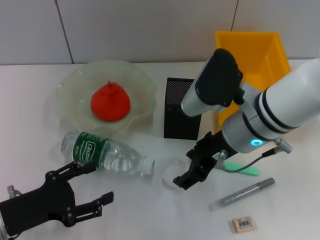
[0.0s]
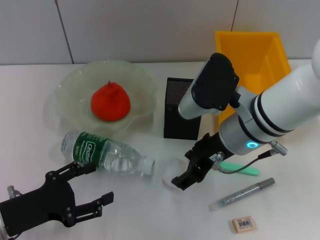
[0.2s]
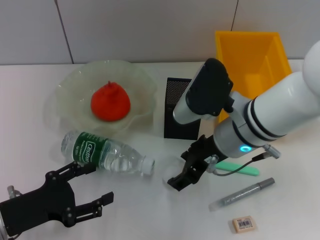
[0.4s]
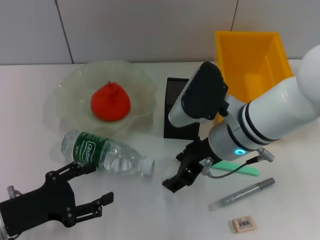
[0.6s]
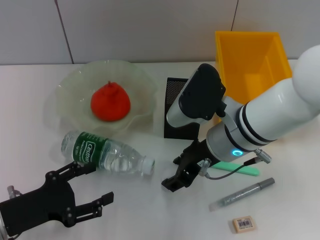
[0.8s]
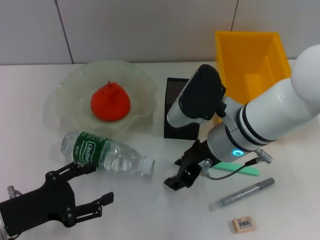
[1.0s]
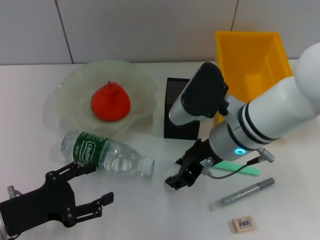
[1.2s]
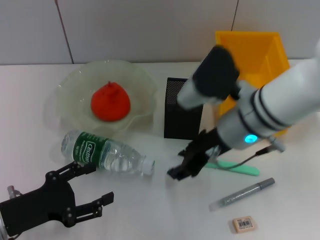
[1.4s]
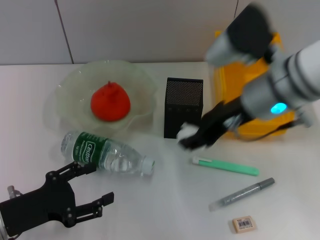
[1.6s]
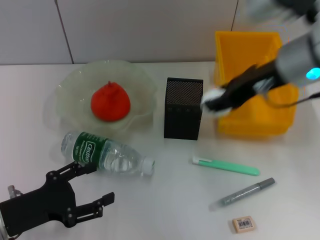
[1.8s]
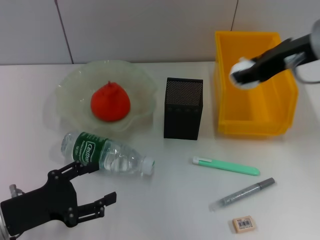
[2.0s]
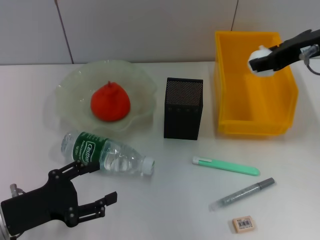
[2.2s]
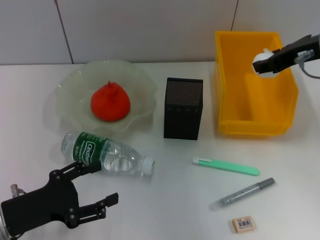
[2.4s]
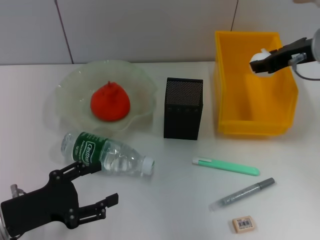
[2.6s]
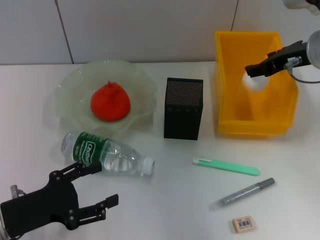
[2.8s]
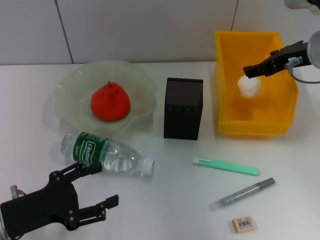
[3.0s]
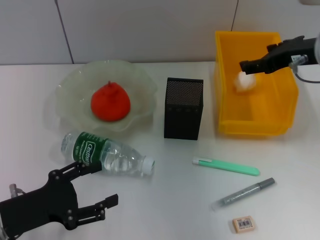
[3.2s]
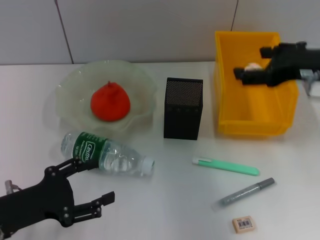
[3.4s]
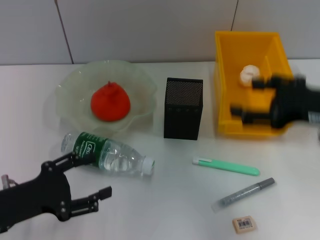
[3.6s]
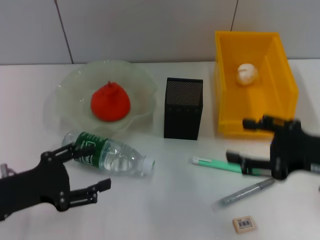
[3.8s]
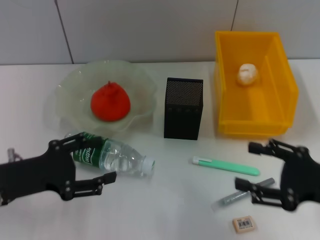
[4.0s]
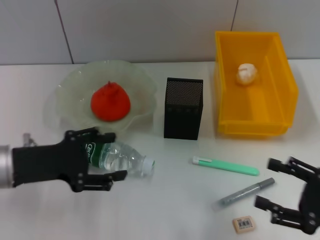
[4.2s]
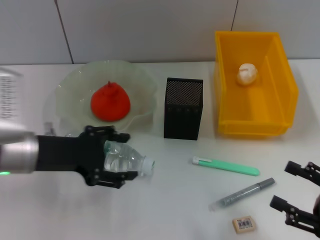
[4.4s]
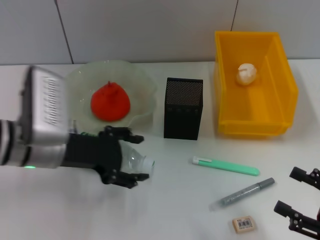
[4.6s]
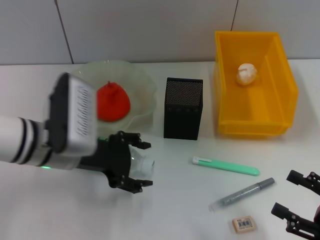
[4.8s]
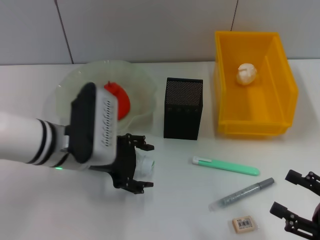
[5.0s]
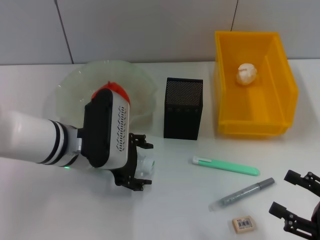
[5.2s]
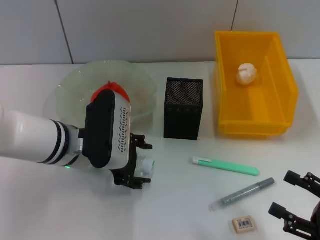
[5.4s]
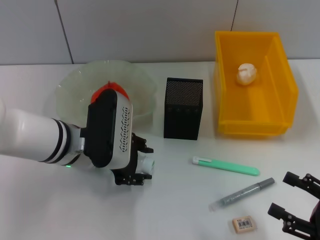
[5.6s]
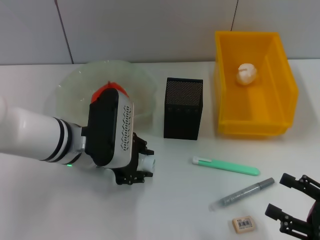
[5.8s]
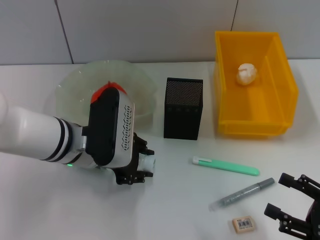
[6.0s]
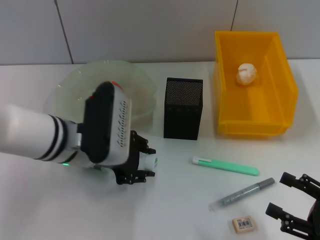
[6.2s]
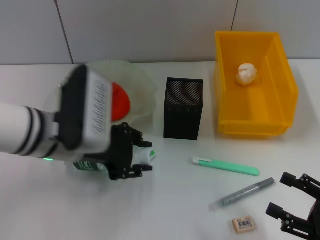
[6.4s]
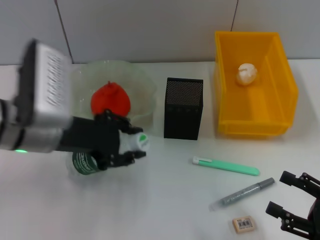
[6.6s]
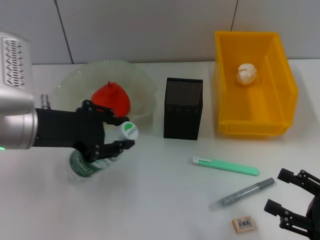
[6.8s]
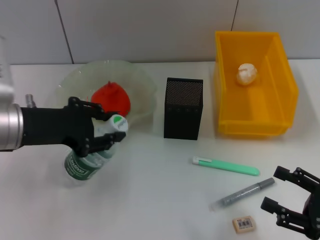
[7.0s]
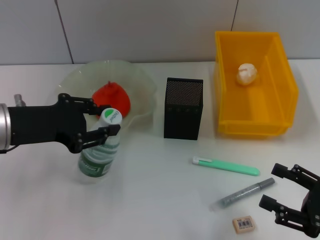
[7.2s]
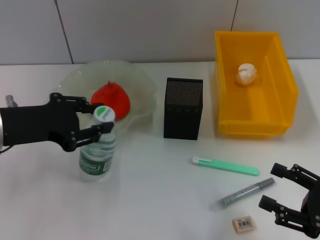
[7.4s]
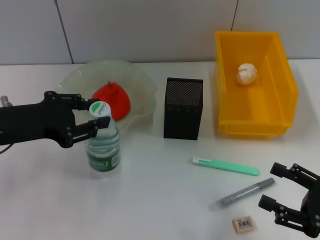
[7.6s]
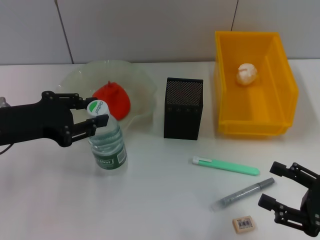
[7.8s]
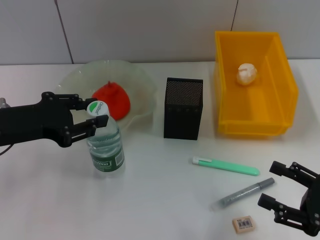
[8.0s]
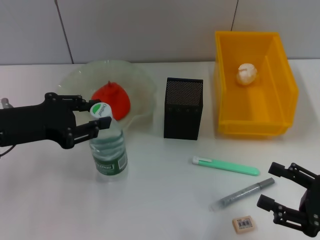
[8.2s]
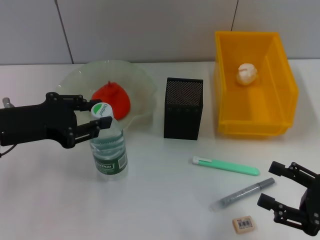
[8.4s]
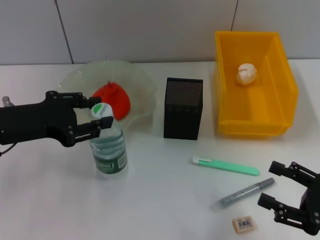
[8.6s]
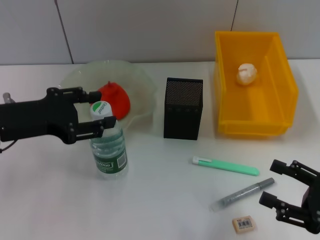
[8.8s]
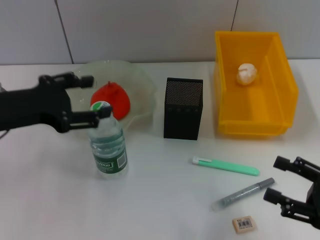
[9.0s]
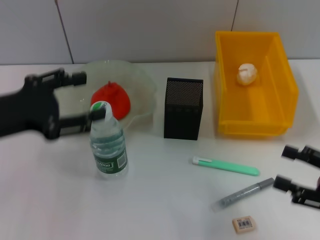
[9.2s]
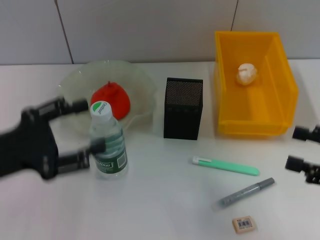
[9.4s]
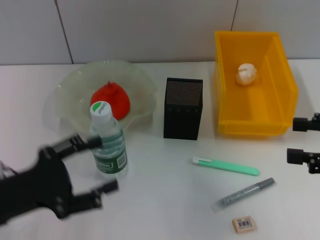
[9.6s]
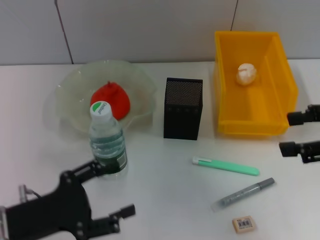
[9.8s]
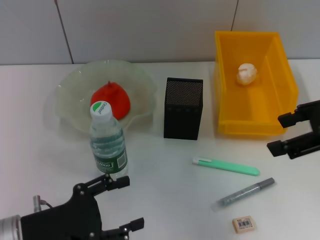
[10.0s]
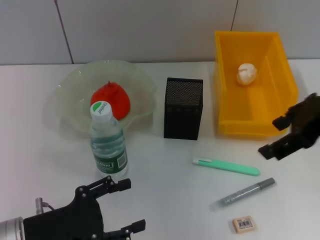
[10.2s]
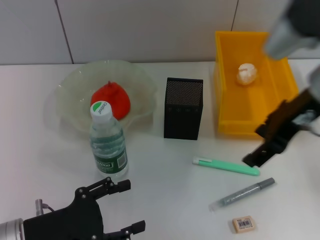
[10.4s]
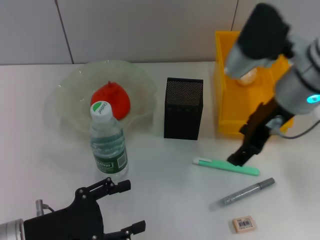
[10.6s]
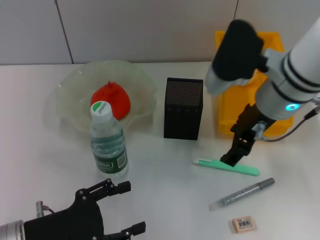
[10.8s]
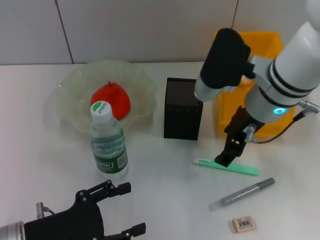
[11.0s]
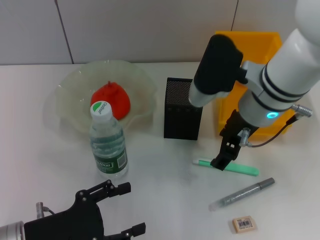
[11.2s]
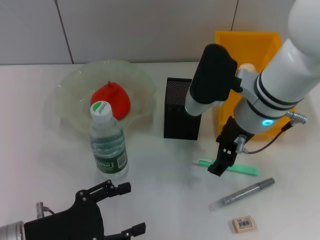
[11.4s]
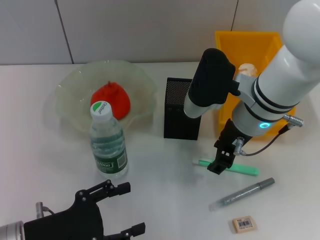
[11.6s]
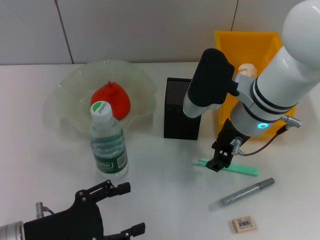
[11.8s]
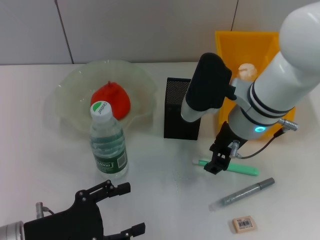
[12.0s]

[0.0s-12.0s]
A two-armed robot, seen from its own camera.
Step, 1.2s to 3.0s: Place the paper ball into the trash can with the right hand.
Step, 3.4s to 6.0s: Grab the water bottle with the left hand.
Step, 6.2s to 8.6s: Place the water bottle on the table with the left hand.
0.0s to 1.6s: The right gripper moves roughly 5 cm.
1.6s to 3.0s: The right gripper shifts about 10 cm to the right and forward.
3.0s to 4.4s: The right gripper is displaced backward and downward by roughly 25 cm. The left gripper travels forward and upward by about 10 cm.
4.4s to 6.0s: The left gripper travels to the right by approximately 10 cm, and closes up.
6.0s to 7.6s: The left gripper moves to the left and upward, some 15 cm.
7.6s to 9.0s: The left gripper opens.
9.0s to 10.4s: The right gripper goes roughly 25 cm upward, forward and to the left; the left gripper travels downward and backward by approximately 15 cm.
10.4s to 12.0s: The right gripper goes approximately 10 cm downward and to the left, and closes its fingers.

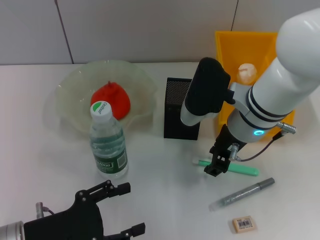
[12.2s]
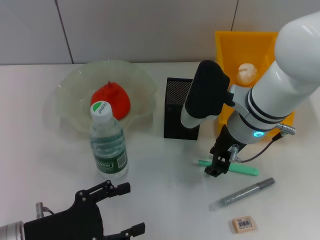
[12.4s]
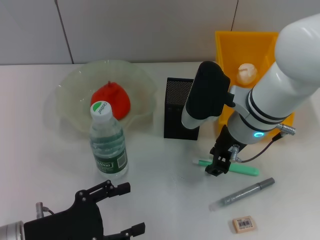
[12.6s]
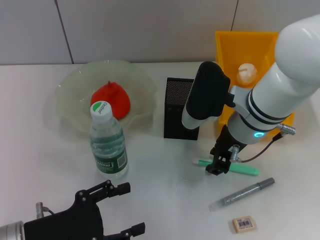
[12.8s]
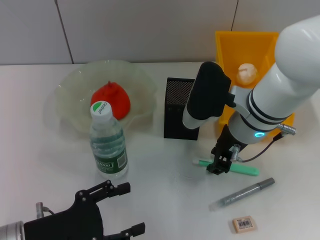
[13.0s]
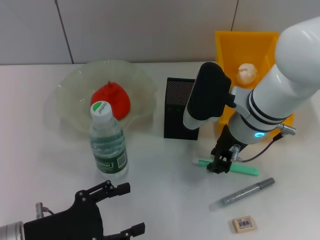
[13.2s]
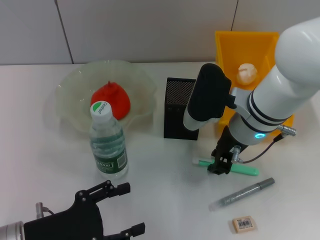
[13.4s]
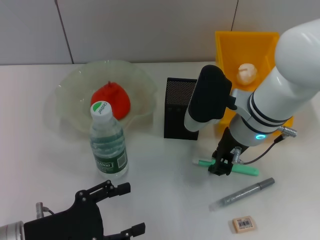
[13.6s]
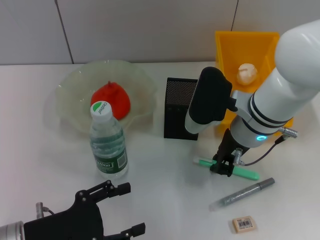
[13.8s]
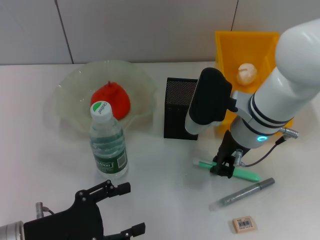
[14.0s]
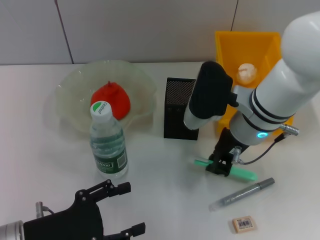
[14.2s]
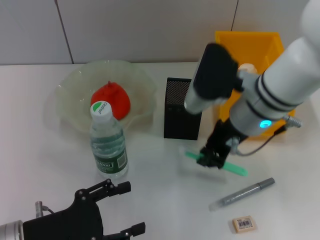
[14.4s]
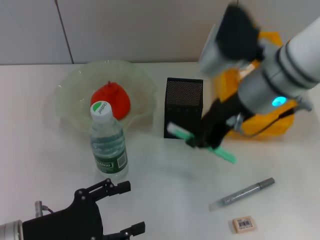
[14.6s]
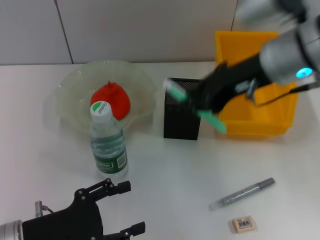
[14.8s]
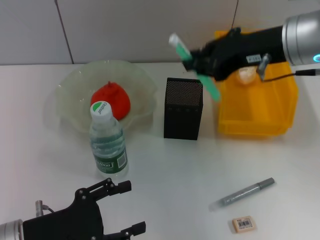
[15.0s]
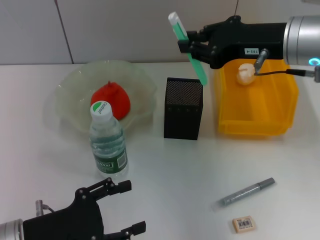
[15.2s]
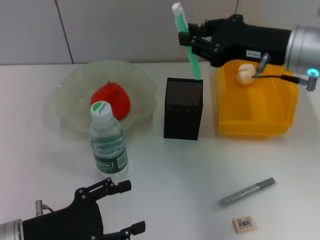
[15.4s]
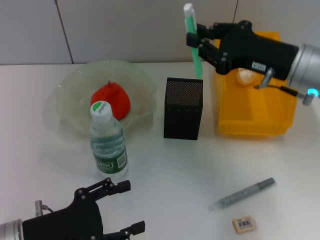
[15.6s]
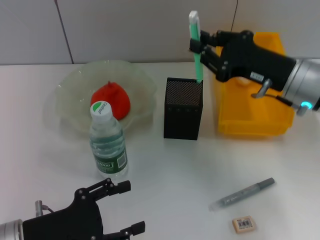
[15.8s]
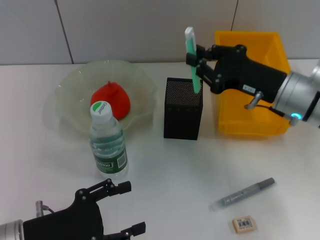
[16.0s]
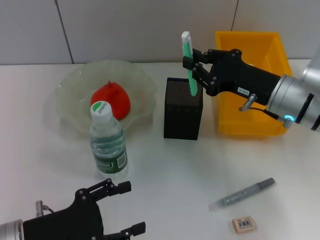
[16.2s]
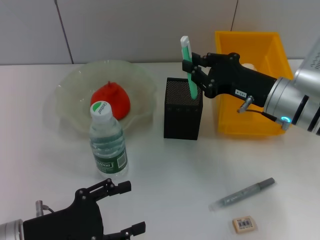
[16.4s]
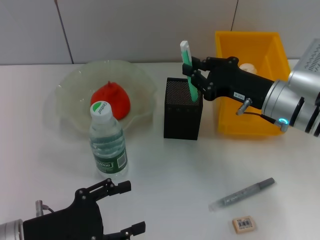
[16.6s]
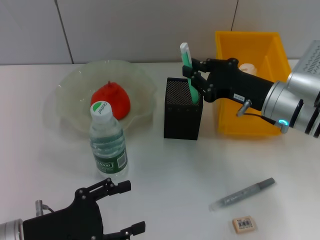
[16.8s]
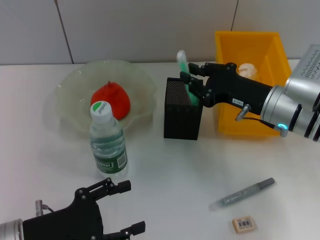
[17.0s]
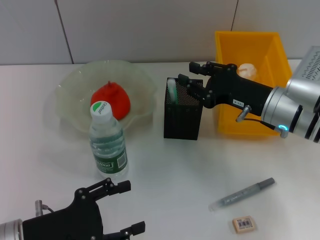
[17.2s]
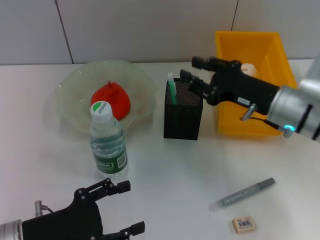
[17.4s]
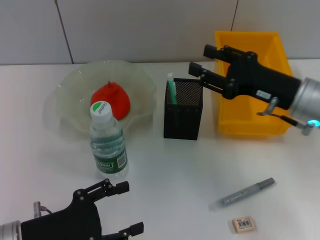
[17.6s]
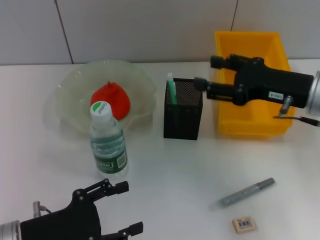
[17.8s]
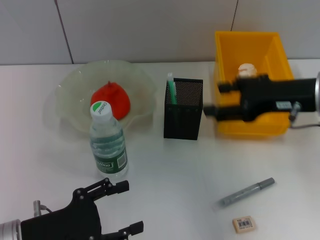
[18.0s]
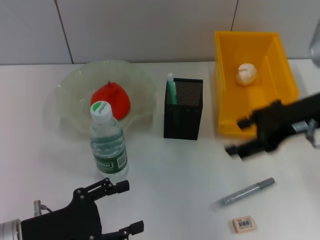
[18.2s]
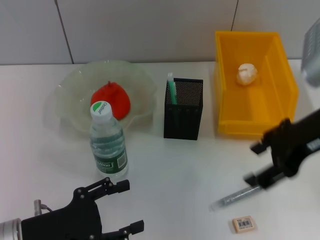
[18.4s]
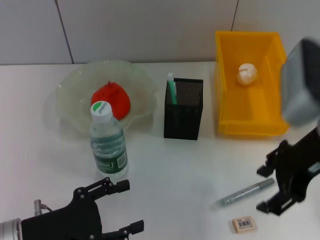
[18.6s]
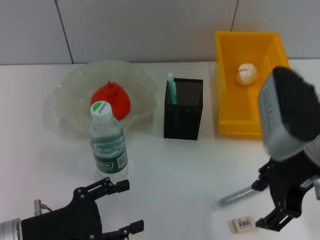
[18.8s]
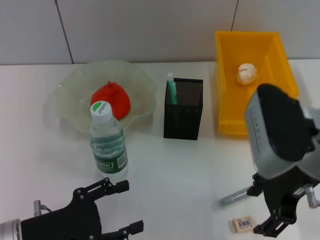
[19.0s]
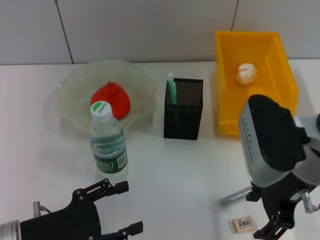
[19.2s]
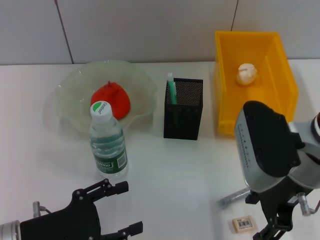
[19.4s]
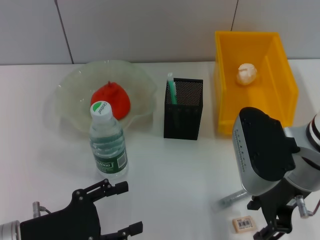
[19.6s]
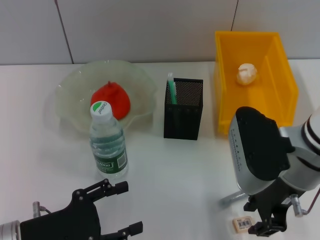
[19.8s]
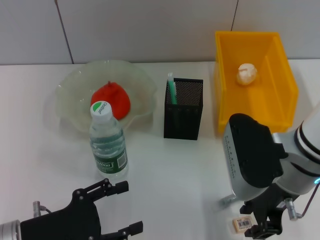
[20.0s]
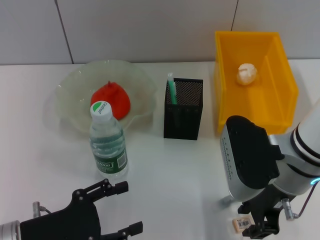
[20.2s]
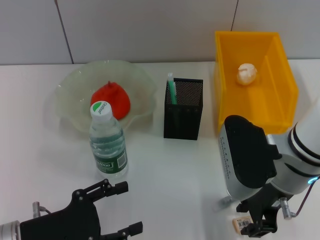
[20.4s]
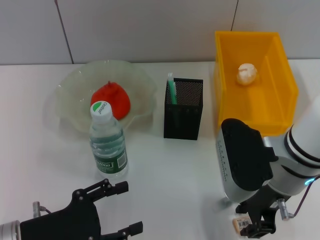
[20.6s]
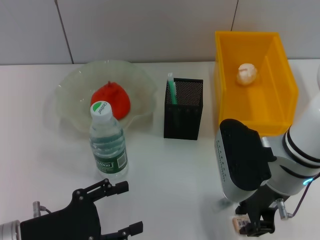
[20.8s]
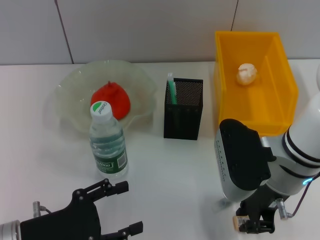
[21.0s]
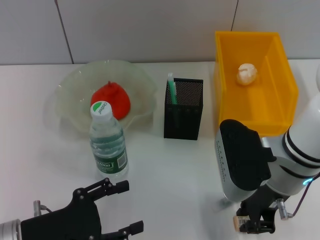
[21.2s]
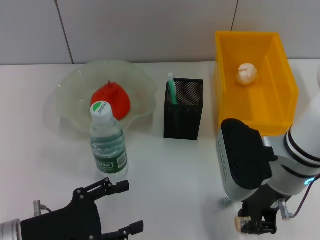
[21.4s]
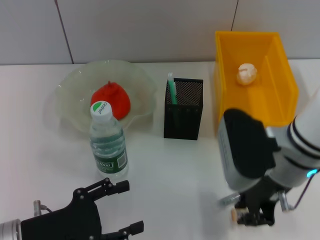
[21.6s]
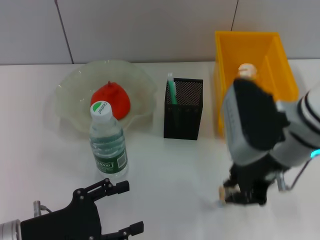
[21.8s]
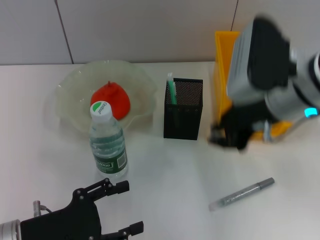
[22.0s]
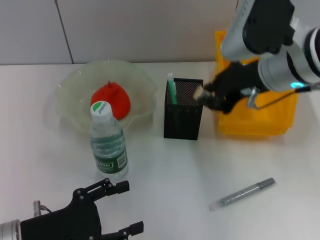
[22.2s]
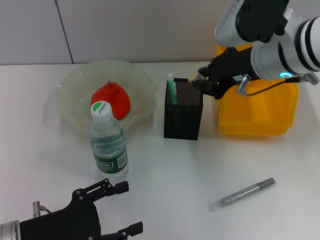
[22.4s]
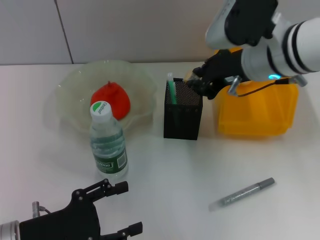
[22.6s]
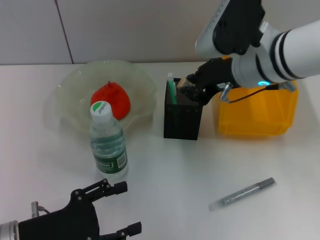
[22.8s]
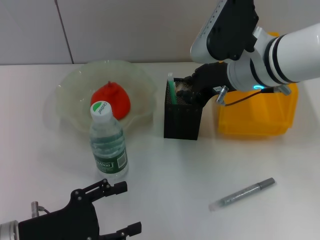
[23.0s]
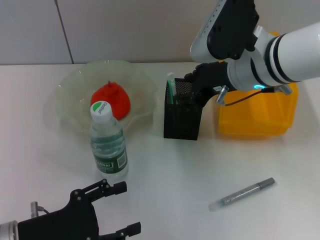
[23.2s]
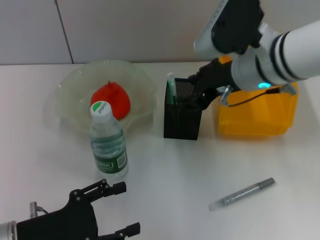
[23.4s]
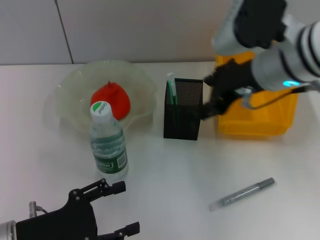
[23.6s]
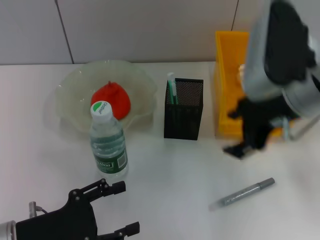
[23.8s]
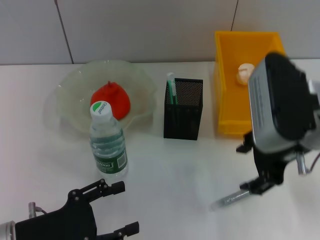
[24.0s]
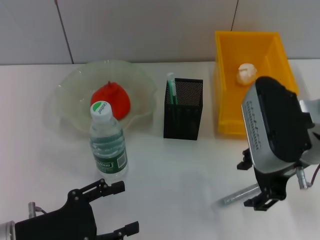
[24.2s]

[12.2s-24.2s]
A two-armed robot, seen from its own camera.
Step, 14.0s to 17.2s: Place the blue utility knife into the pen holder with the right hand.
Step, 17.4s to 21.2s: Grab the eraser with the right hand.
Step, 21.4s to 23.0s: Put the eraser into the pen holder with the right hand.
12.2s to 13.8s: There are only small adjustments of the grippers.
13.8s to 15.2s: The right gripper goes about 10 cm upward and to the right.
15.2s to 16.6s: The right gripper moves downward, some 10 cm.
16.6s to 18.2s: The right gripper goes about 10 cm upward and backward, and opens up.
18.2s to 19.8s: The right gripper moves to the left and downward, roughly 10 cm.
19.8s to 21.2s: The right gripper closes.
21.2s to 22.6s: The right gripper heads forward and upward, covering some 10 cm.
22.6s to 24.2s: The right gripper goes approximately 10 cm backward, and opens its fingers.
